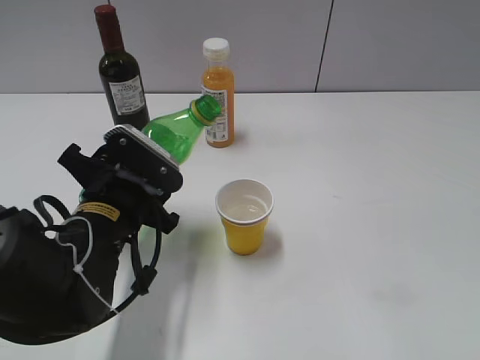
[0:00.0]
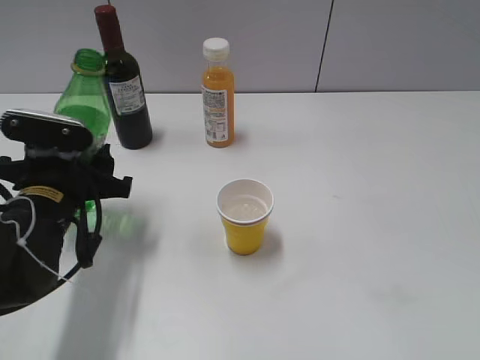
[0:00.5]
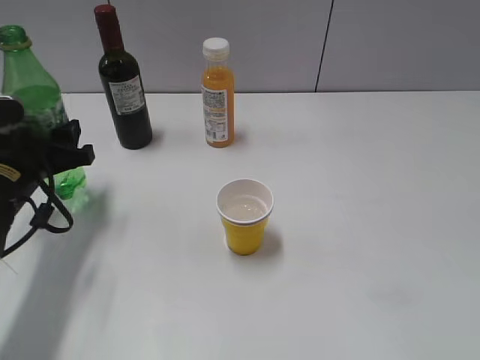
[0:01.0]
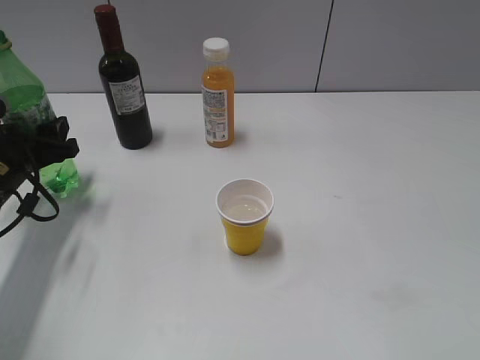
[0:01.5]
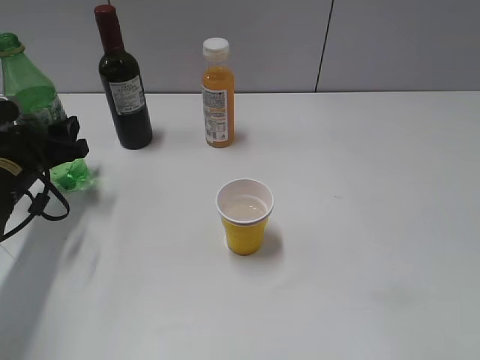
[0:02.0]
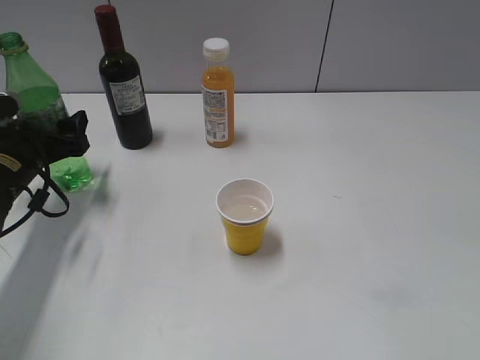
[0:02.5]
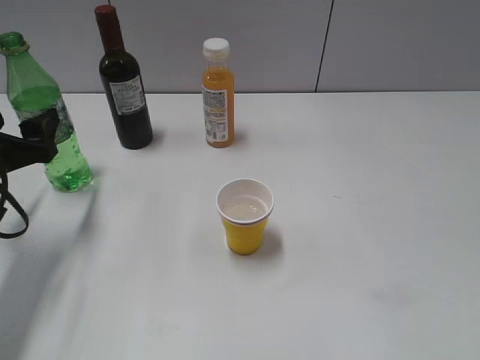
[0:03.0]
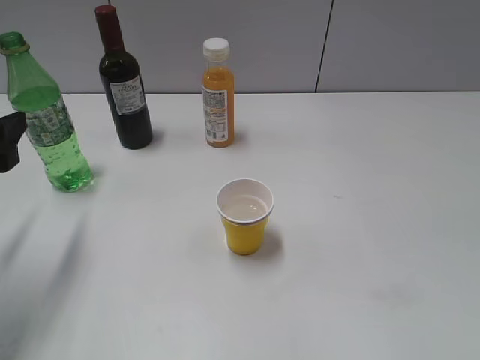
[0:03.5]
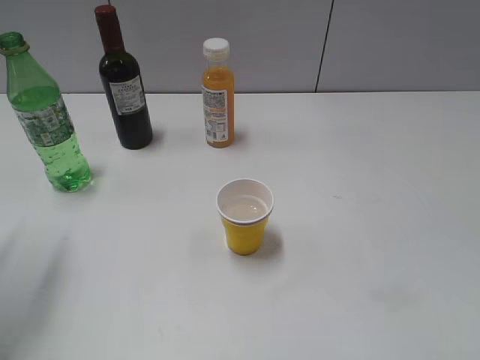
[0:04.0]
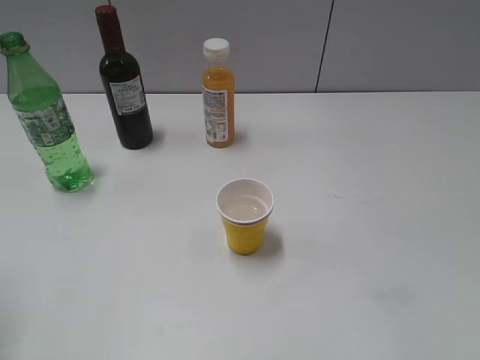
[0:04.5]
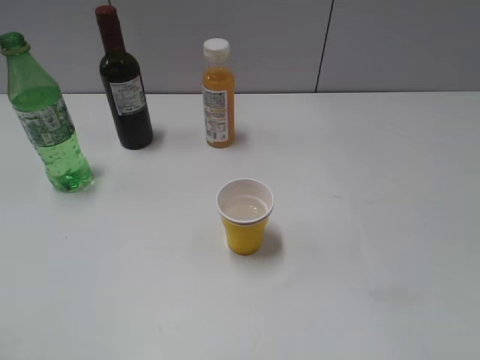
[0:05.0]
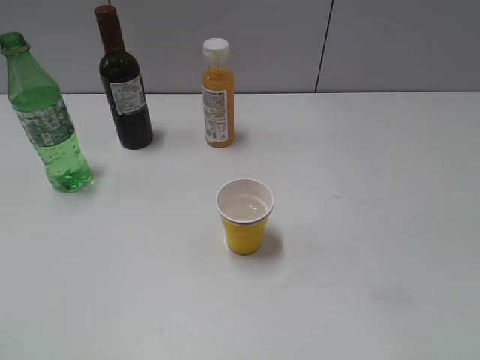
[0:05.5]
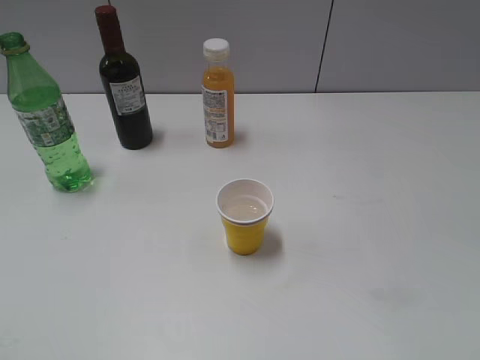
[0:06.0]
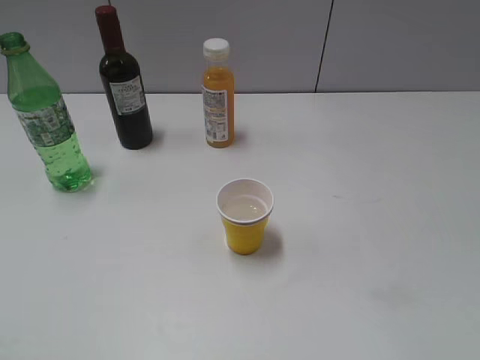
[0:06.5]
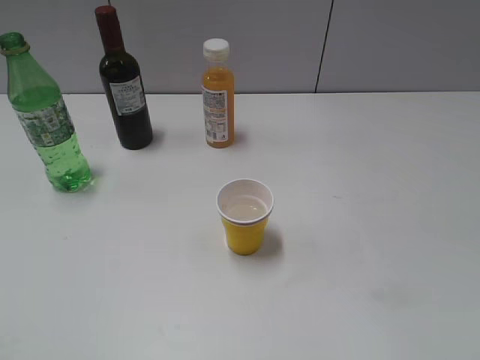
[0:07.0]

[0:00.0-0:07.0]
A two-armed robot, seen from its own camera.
Step, 0:00.0 to 0:02.5: Place the sprite bottle on the table with left gripper.
0:00.0 to 0:02.0: The left gripper goes approximately 15 cm to the left and forward.
0:02.0 to 0:03.5: The left gripper shifts roughly 15 cm backward and upward, and opens.
0:03.5 to 0:05.0: The left gripper moves backward and upward, some 20 cm.

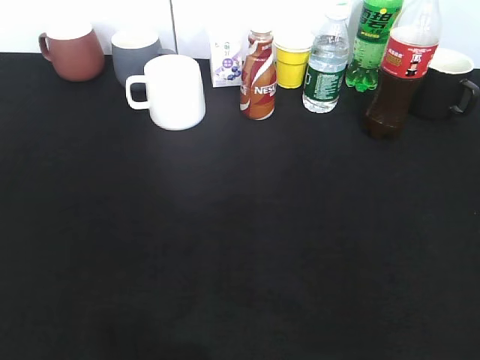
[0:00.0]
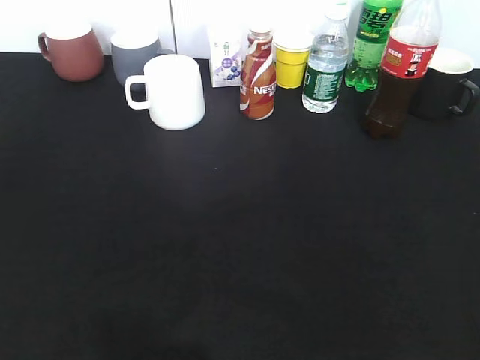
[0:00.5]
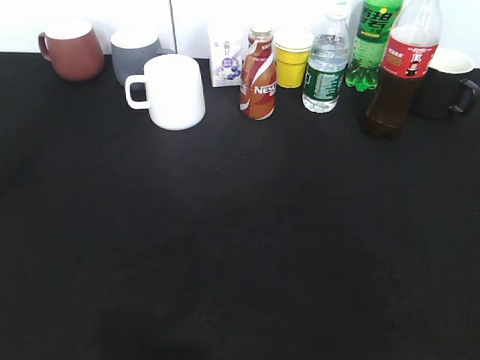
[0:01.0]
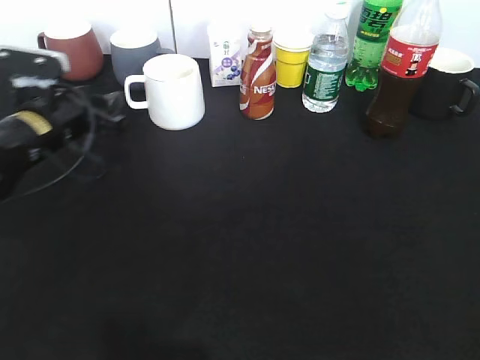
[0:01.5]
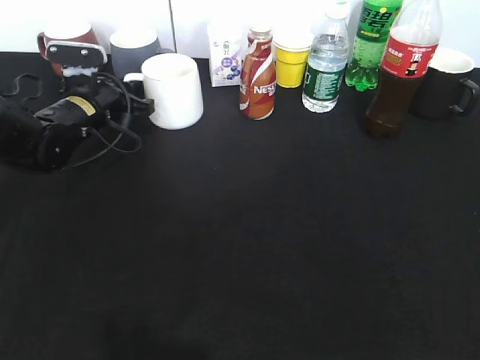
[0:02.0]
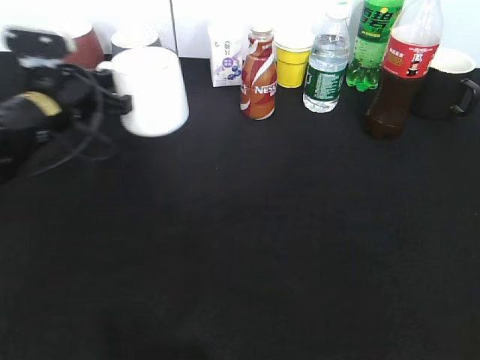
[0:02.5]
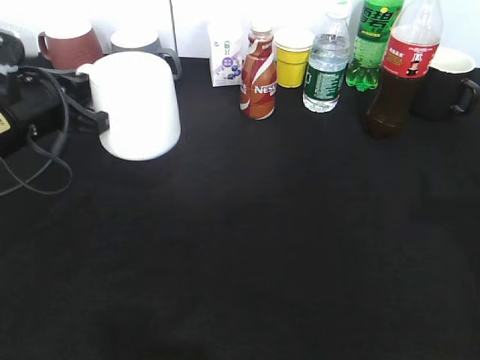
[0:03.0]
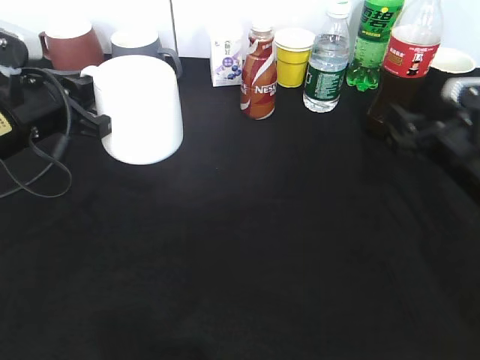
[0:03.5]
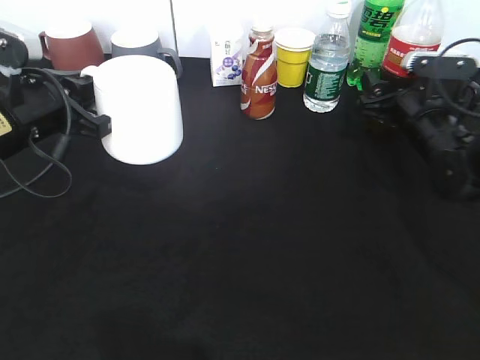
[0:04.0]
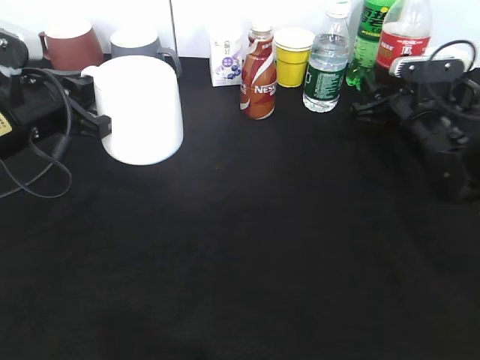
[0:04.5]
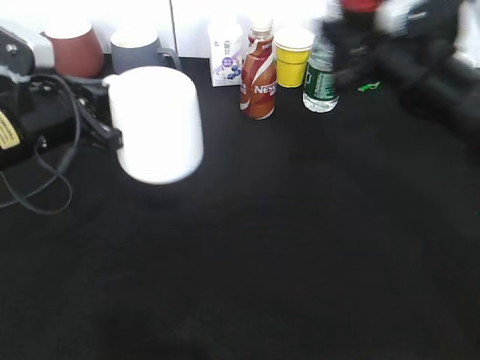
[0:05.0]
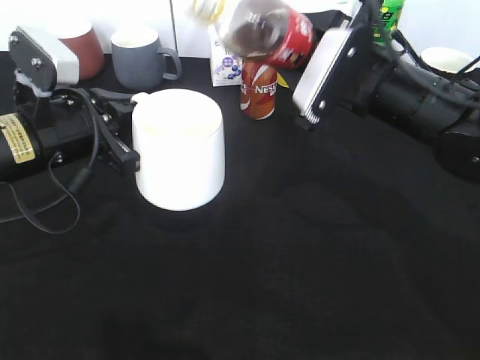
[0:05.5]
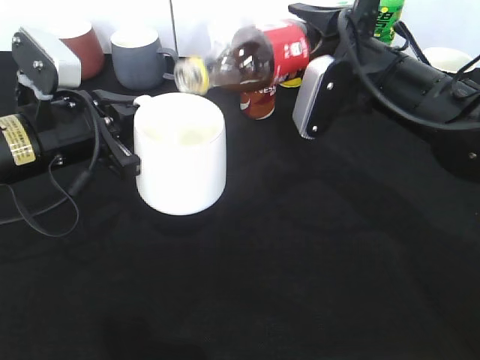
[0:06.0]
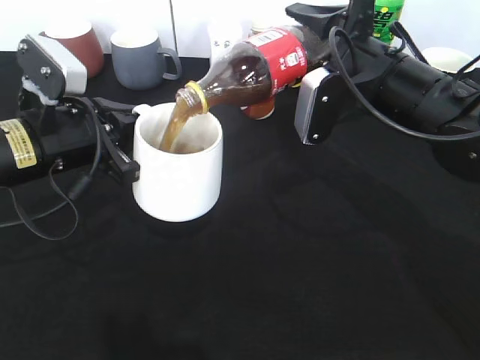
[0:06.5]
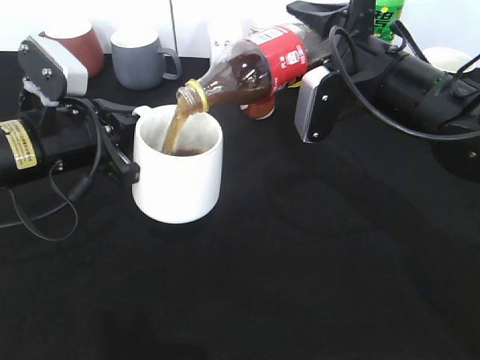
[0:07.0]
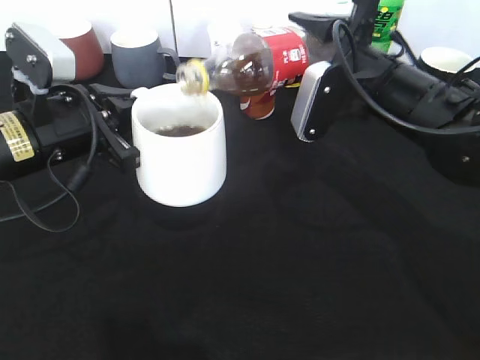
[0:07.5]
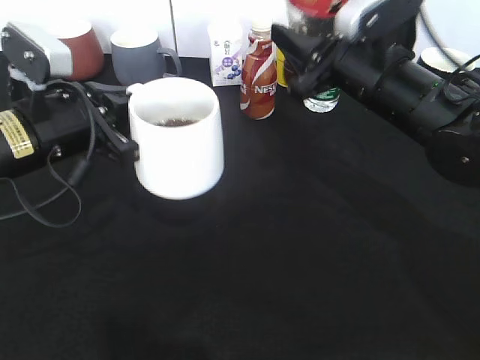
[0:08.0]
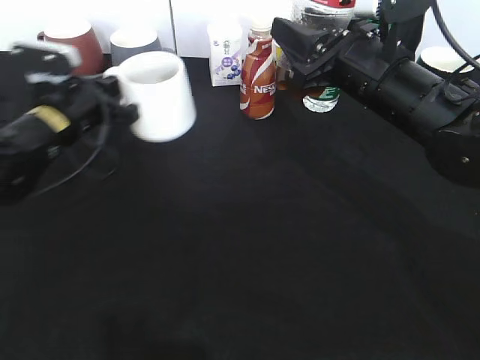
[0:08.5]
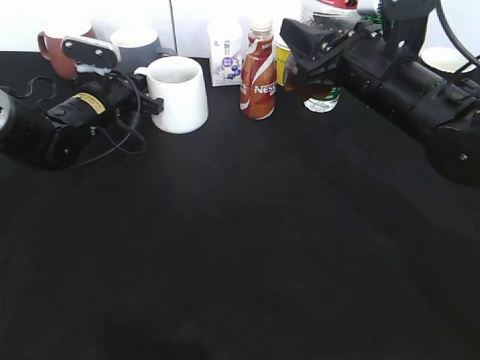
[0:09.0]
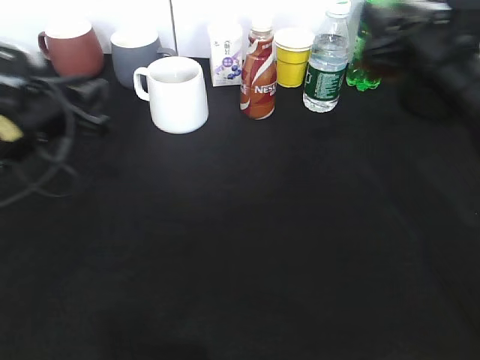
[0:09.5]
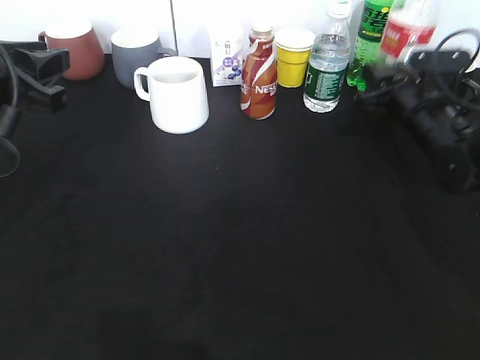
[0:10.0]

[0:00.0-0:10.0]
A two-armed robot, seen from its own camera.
Step, 0:00.0 to 0:02.0: Grasp the white cup with left gripper.
Step, 0:02.5 to 0:03.0: Lift the white cup with left gripper.
Step, 0:03.5 to 0:04.0: Grasp the bottle with cola with right gripper.
Step, 0:04.5 to 0:07.5: Pour the cola from bottle to cup with right gripper.
Step, 0:08.0 to 0:09.0: Place the white cup on the table with left gripper.
0:00.0 to 0:02.0: The left gripper travels forward by about 40 cm, and closes its fingers.
0:02.0 to 0:04.0: The right gripper shifts approximately 40 cm forward and downward. Meanwhile the left gripper is displaced backward and upward by about 15 cm.
0:04.0 to 0:06.0: The right gripper heads upward, to the left and backward, covering roughly 15 cm, and closes its fingers.
0:08.0 to 0:10.0: The right gripper travels downward, to the right and forward by approximately 15 cm. The left gripper heads to the left, covering roughly 5 cm, travels forward and back again, about 15 cm each way, and opens up.

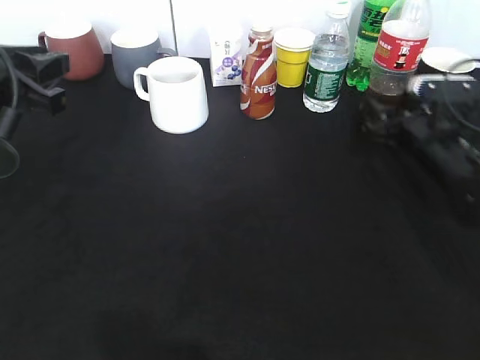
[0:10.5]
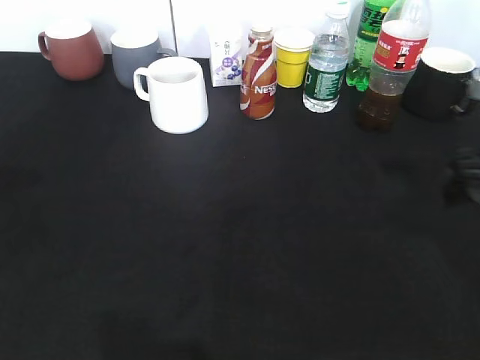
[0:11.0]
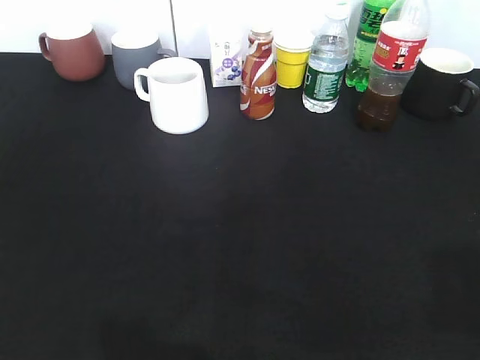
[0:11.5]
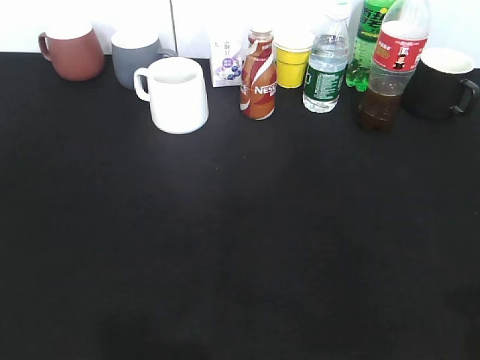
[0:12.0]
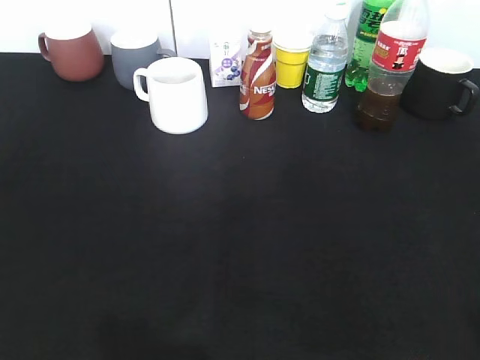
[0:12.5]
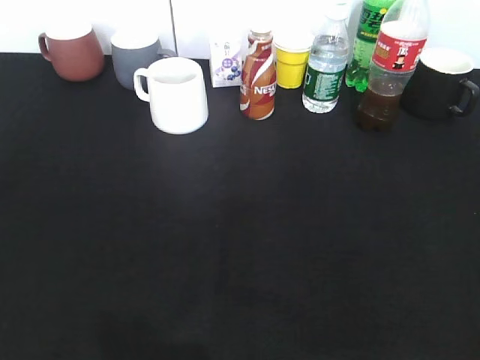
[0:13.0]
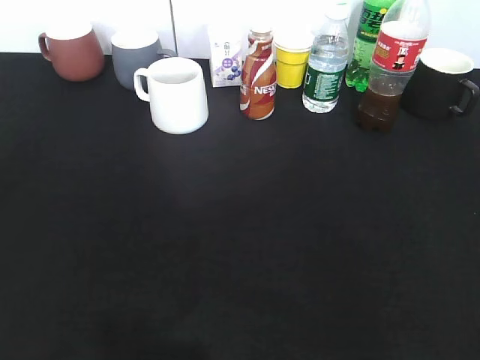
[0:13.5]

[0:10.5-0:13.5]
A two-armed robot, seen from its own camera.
0:10.5 to 0:12.0: The left gripper shifts some 25 cm backward, and opens. Meanwhile the right gripper goes roughly 35 cm backward and upward.

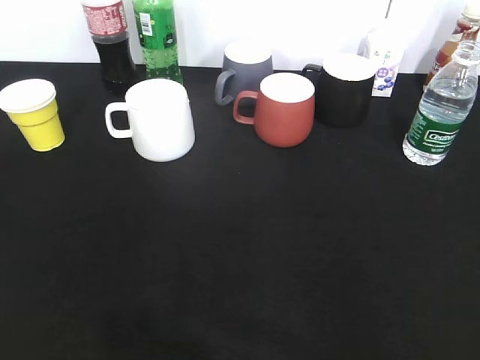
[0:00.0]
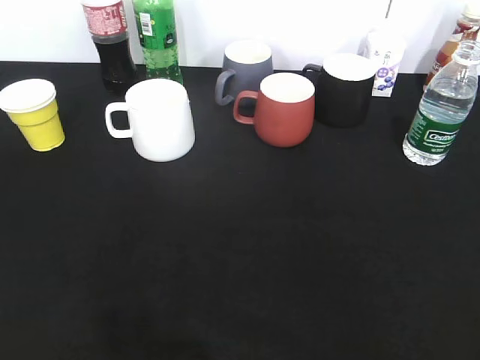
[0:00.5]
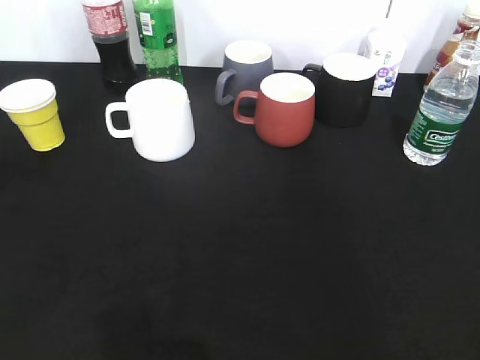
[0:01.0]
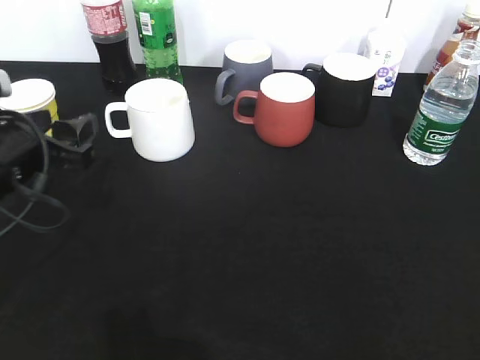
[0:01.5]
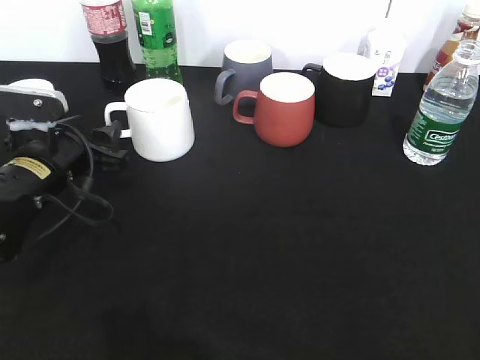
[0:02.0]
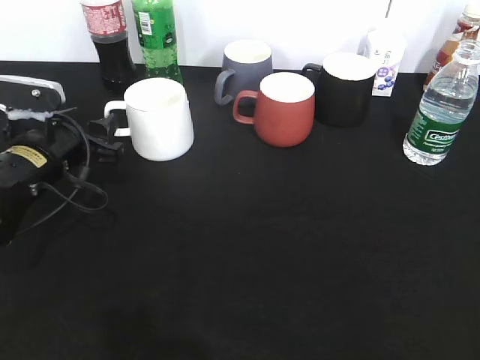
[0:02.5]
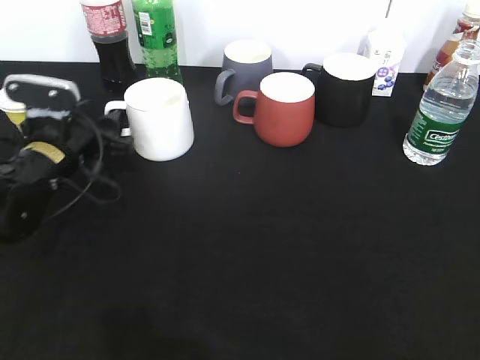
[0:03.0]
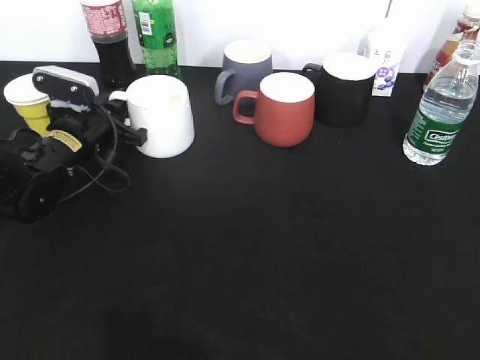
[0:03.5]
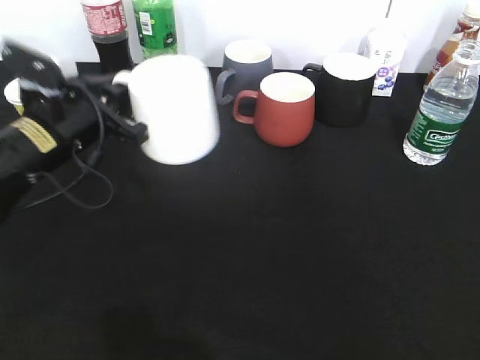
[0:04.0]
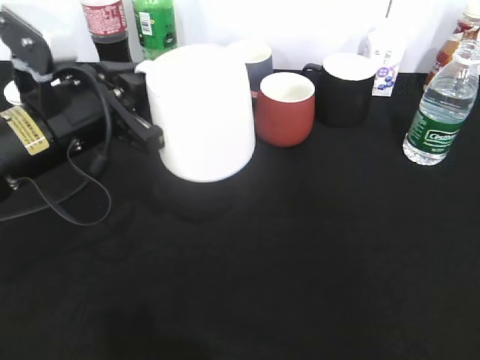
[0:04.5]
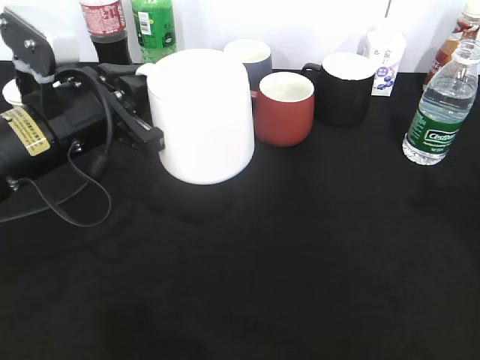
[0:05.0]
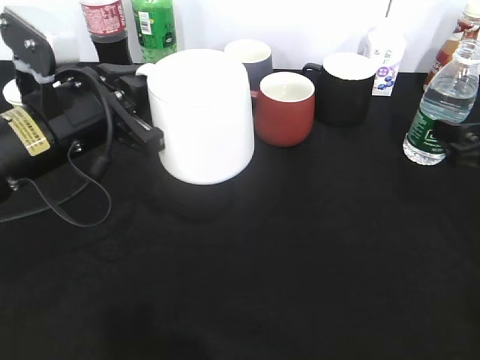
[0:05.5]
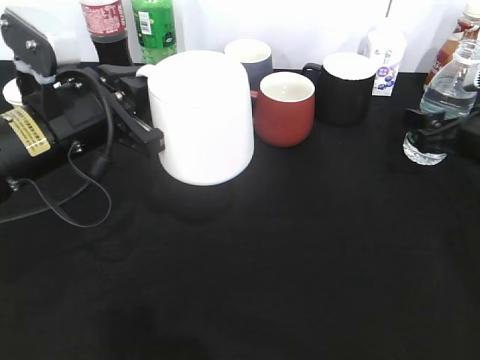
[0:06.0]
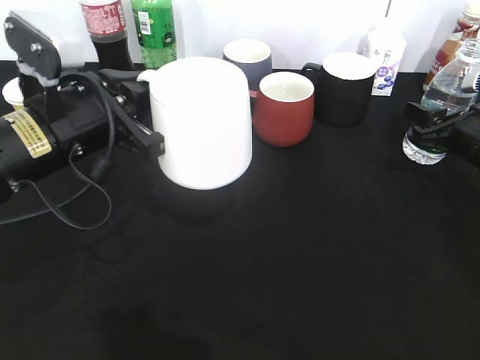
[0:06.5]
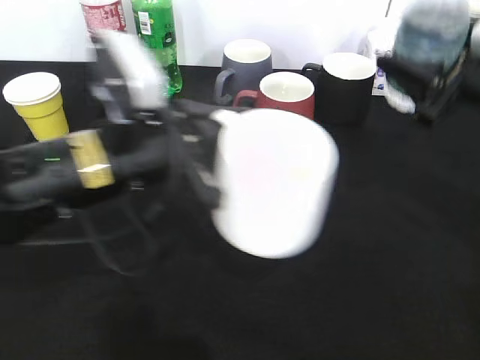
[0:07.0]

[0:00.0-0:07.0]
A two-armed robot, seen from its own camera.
Step, 0:00.0 to 0:03.5: Grasp the white cup with left gripper.
Step, 0:04.5 to 0:06.0: Grasp the bottle with water with right gripper.
0:00.0 to 0:02.0: The left gripper is displaced forward and downward by about 35 cm, and opens up.
0:02.0 to 0:03.5: The left gripper shifts approximately 10 cm forward, and closes its fingers.
0:03.5 to 0:05.0: The right gripper travels forward by about 20 cm; the left gripper shifts about 15 cm backward, upward and to the right.
0:05.0 to 0:07.0: The right gripper moves forward and to the left, some 10 cm, and closes its fingers. Meanwhile the left gripper moves to the right, some 5 cm.
